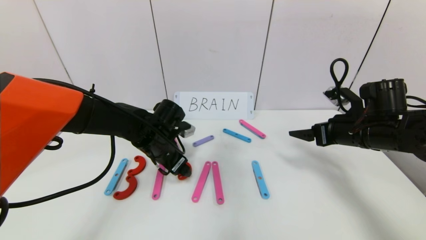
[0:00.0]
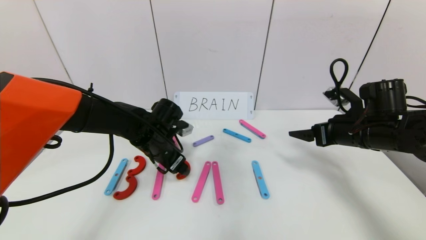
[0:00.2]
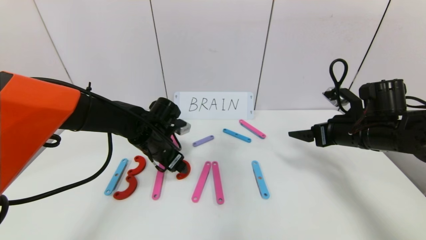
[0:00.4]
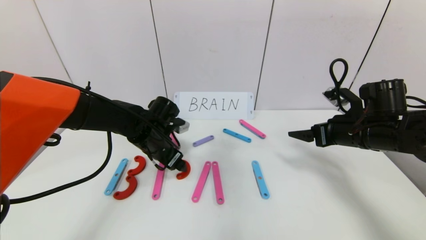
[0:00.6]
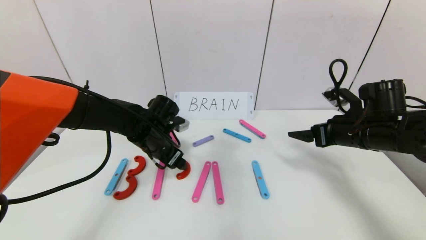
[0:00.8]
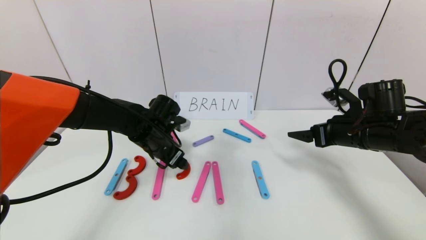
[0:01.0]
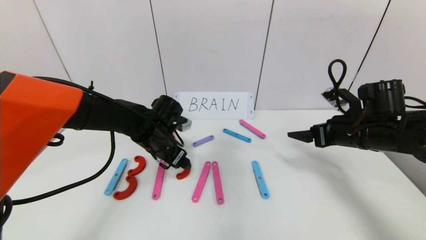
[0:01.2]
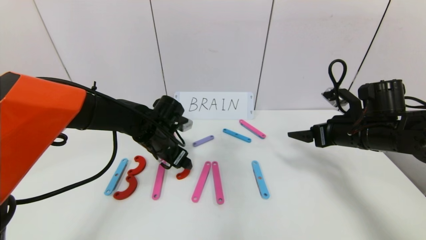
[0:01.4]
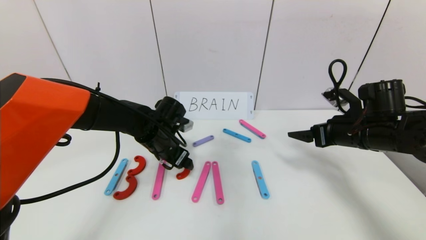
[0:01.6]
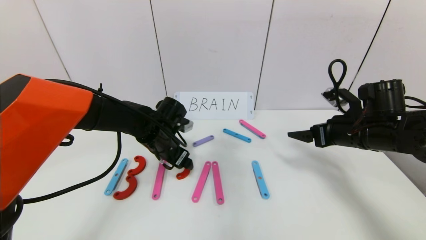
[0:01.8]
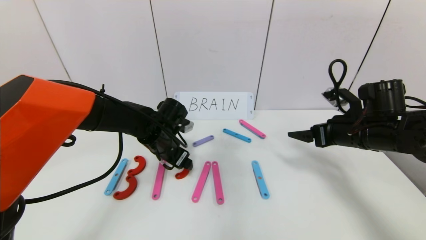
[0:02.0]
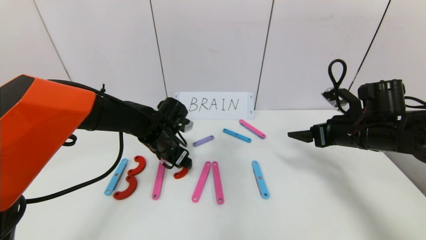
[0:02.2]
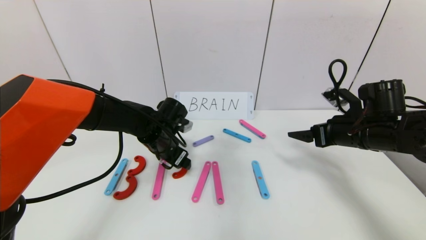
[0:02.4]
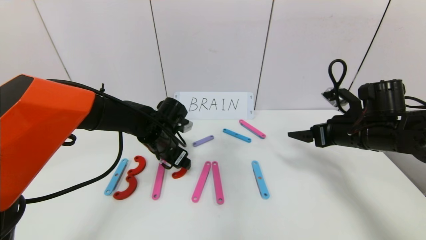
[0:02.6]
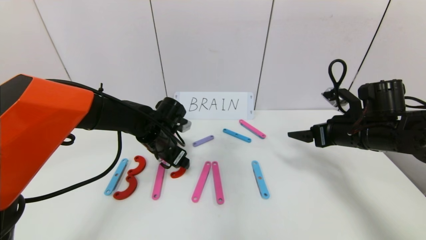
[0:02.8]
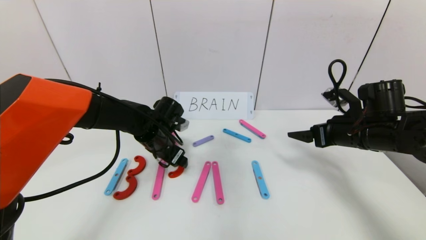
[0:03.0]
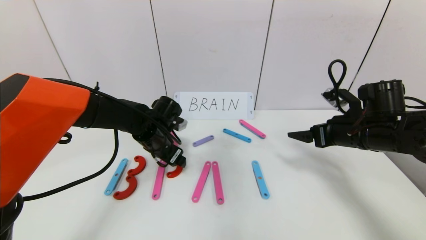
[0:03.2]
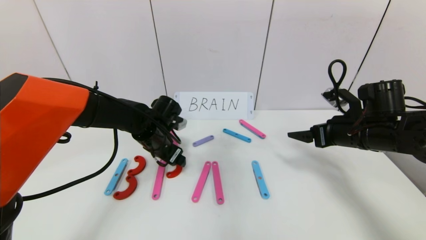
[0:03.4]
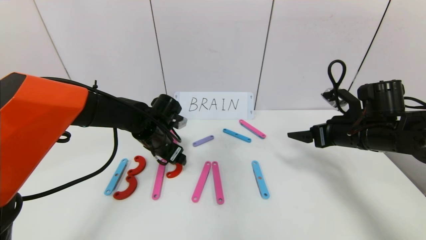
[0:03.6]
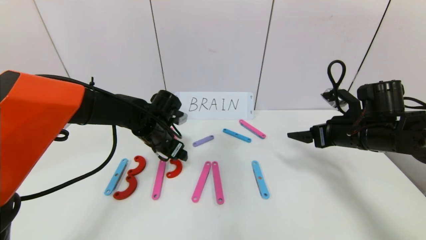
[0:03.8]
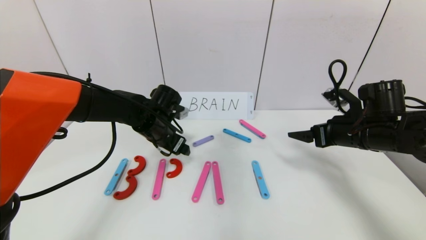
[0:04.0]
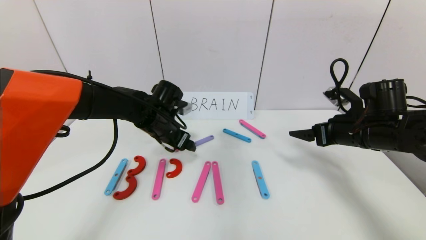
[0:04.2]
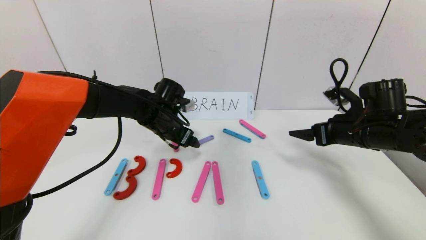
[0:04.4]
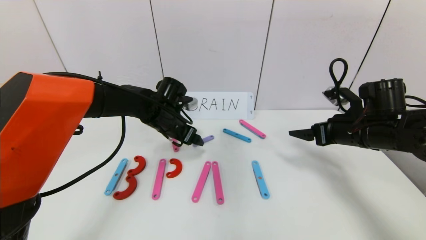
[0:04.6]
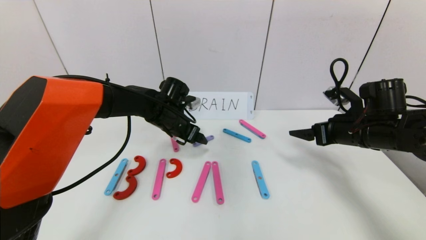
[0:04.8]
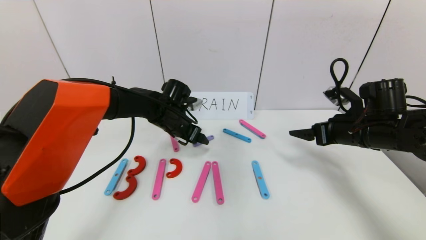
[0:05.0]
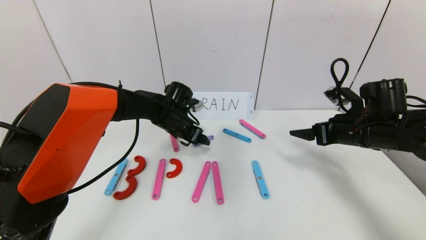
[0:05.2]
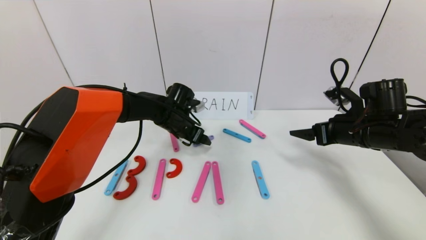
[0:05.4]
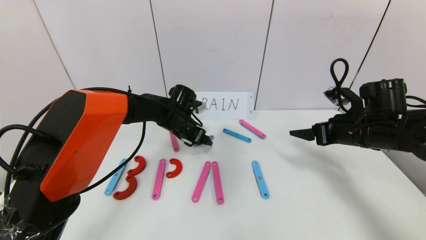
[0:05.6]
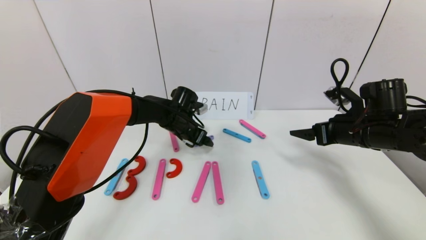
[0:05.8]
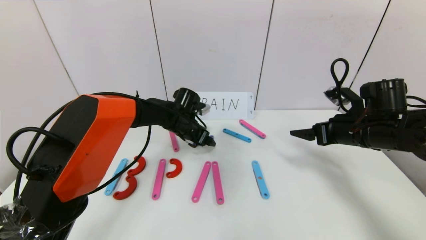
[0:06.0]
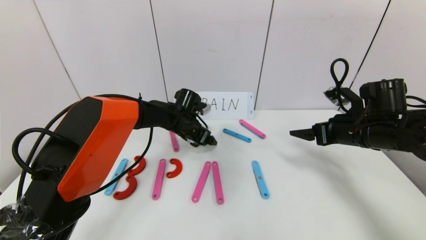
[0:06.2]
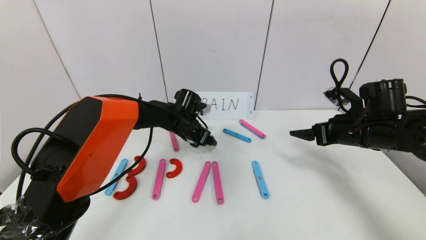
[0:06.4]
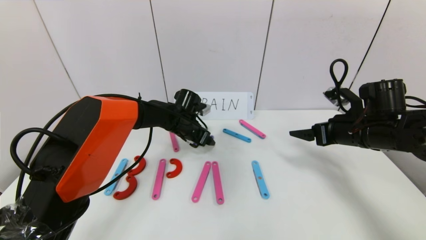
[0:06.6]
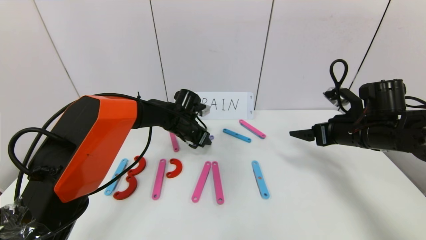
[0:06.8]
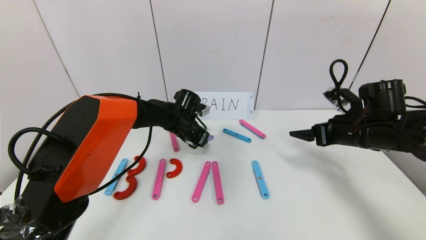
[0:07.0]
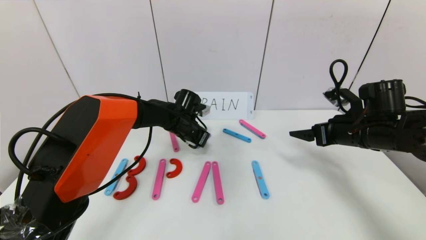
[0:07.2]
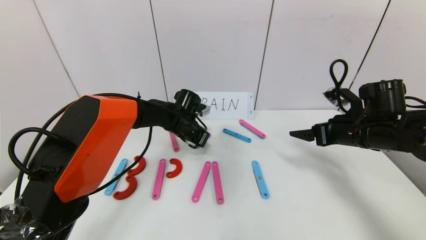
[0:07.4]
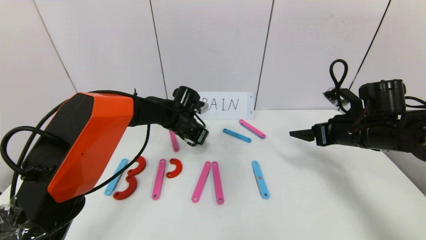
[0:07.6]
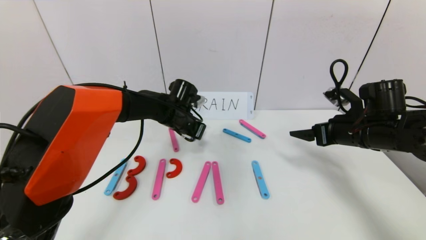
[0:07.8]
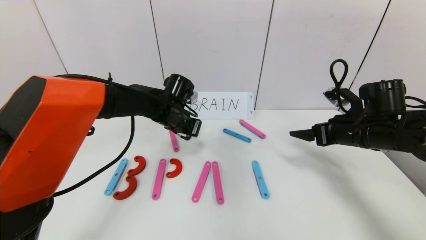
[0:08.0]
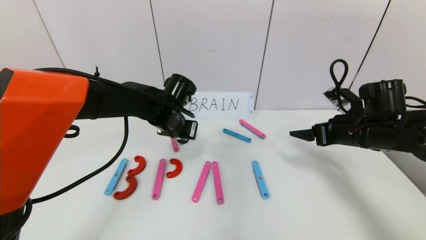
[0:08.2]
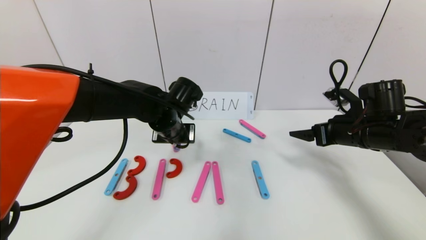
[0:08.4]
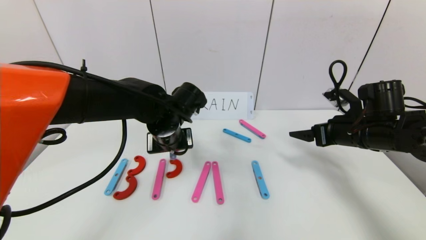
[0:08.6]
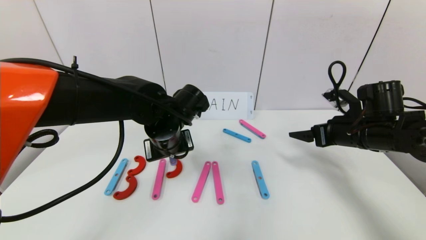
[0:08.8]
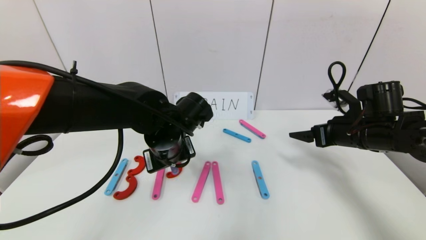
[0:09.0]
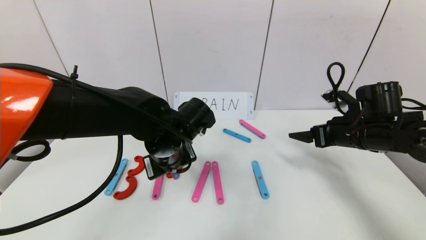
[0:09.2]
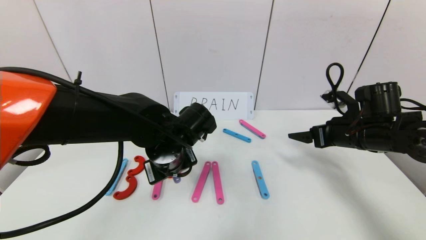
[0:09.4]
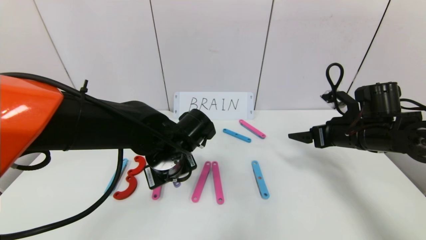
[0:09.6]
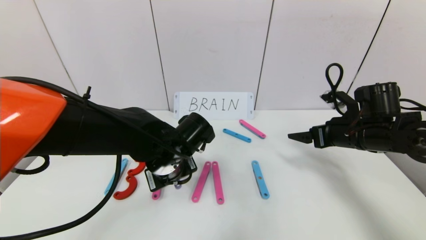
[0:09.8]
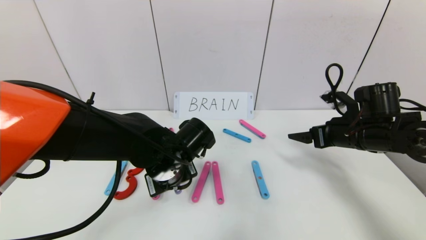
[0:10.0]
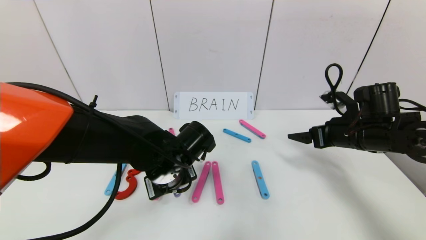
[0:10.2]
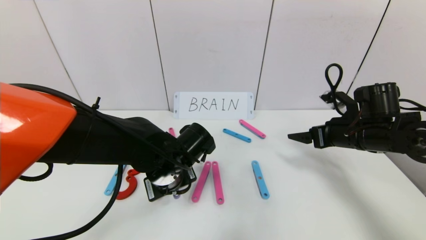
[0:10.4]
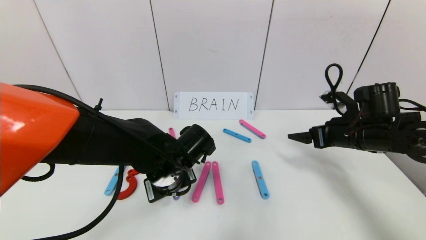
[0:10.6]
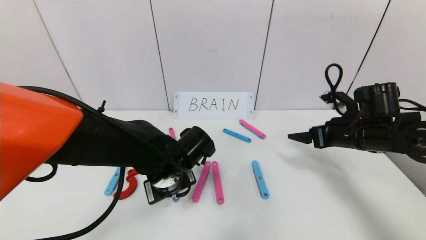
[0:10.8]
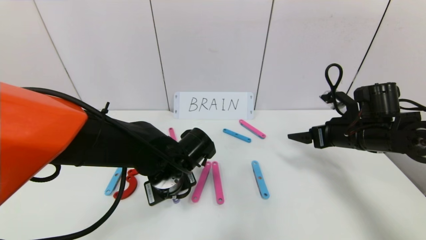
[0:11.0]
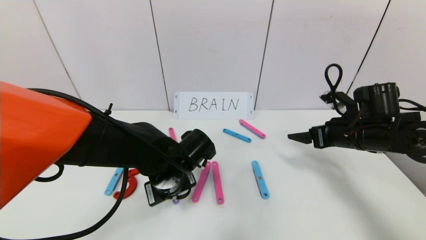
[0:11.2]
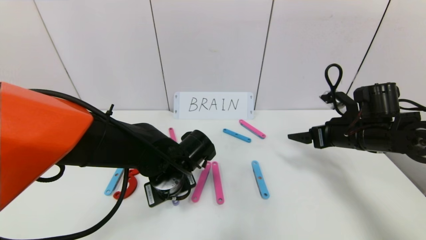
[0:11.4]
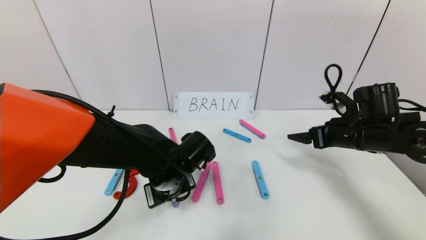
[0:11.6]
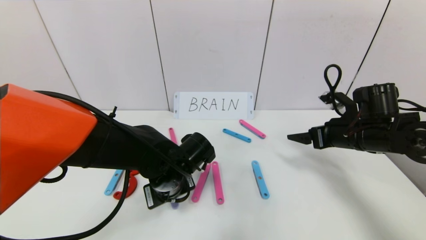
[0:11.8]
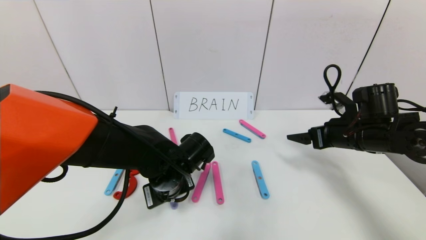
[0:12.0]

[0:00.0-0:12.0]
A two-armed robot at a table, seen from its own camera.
Task of the whole recording: rearrange the word baai as brain.
0:00.0 to 0:04.4: There are only small adjustments of the grippers.
0:04.4 to 0:06.0: The left gripper shifts about 5 cm forward.
0:06.0 to 0:07.6: The left gripper closes its fingers.
0:07.6 to 0:09.0: The left gripper shifts roughly 15 cm backward.
0:09.0 to 0:10.4: The left gripper changes place by some 5 cm.
0:10.4 to 0:12.0: The grippers make only small movements.

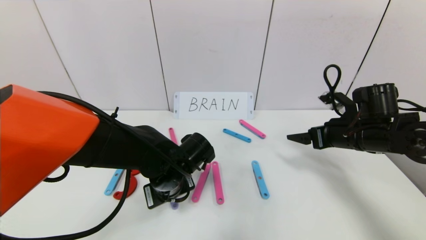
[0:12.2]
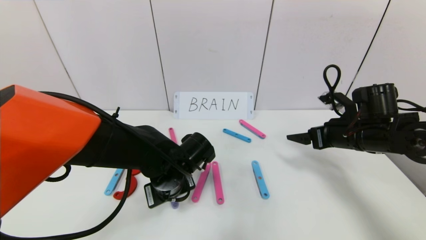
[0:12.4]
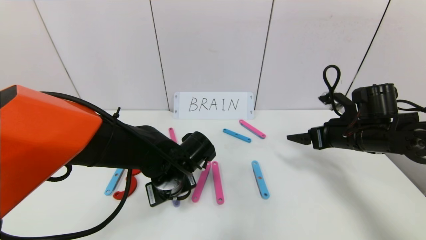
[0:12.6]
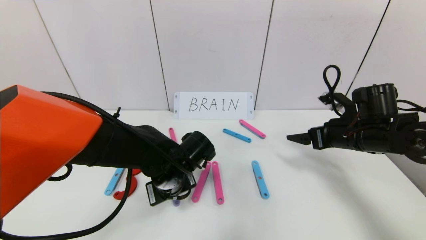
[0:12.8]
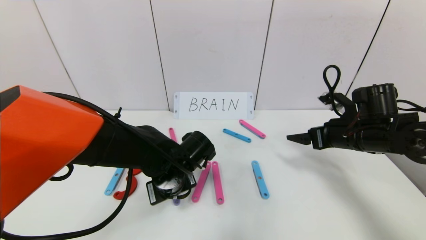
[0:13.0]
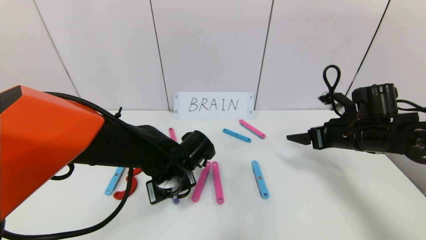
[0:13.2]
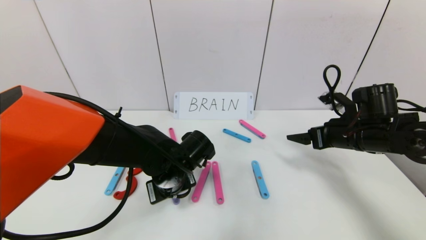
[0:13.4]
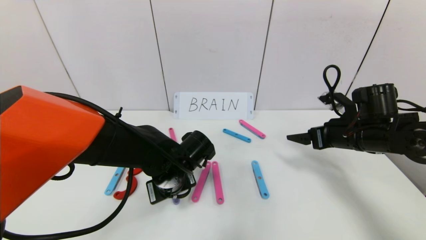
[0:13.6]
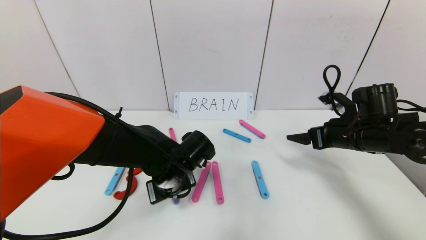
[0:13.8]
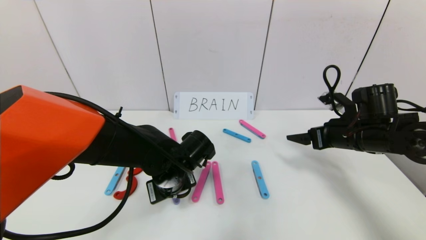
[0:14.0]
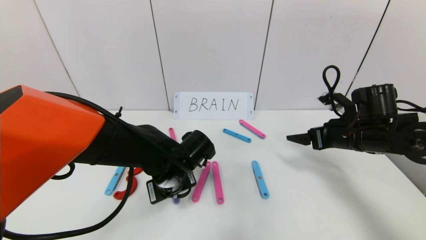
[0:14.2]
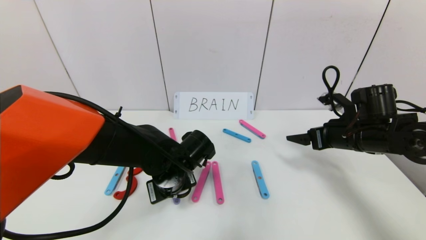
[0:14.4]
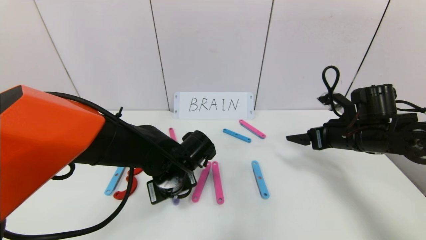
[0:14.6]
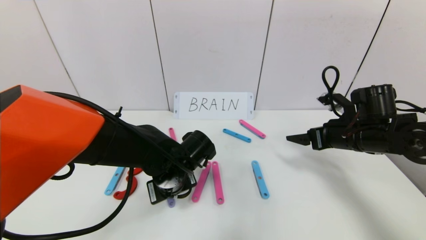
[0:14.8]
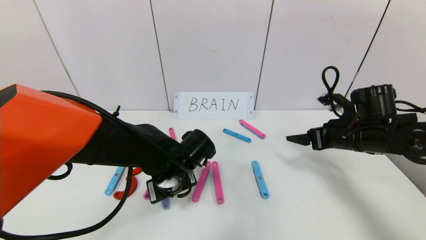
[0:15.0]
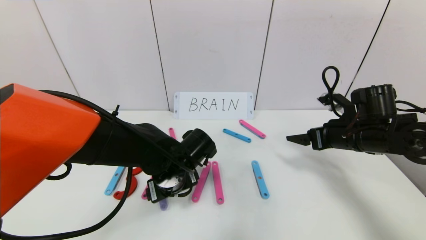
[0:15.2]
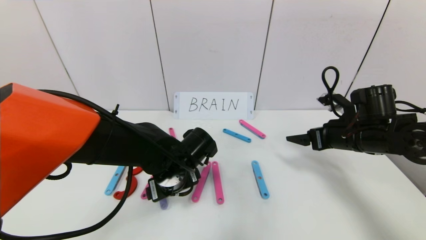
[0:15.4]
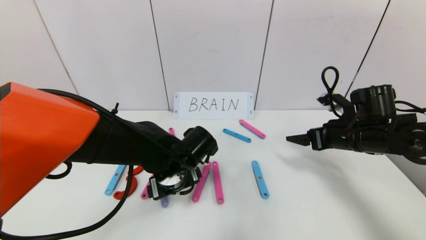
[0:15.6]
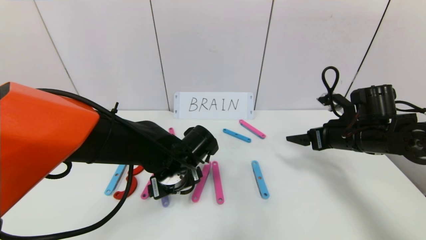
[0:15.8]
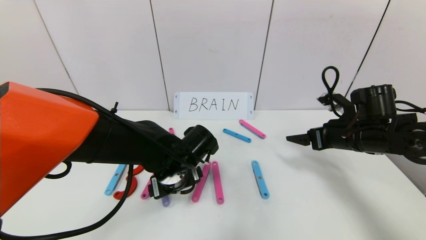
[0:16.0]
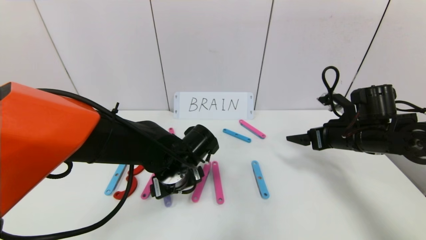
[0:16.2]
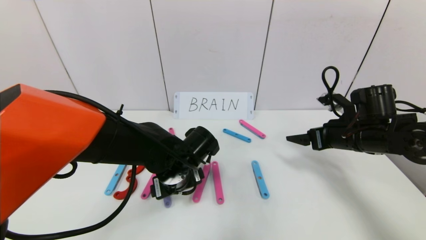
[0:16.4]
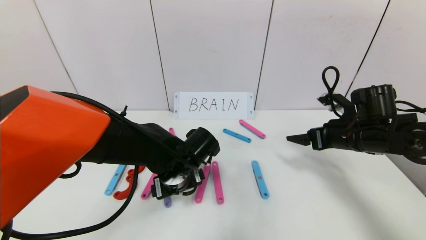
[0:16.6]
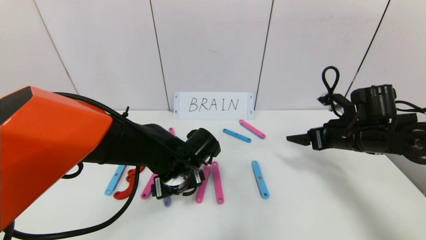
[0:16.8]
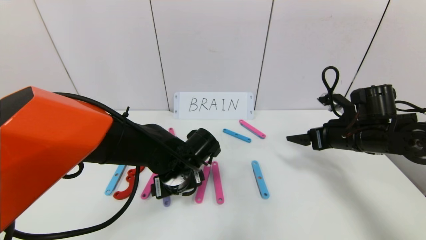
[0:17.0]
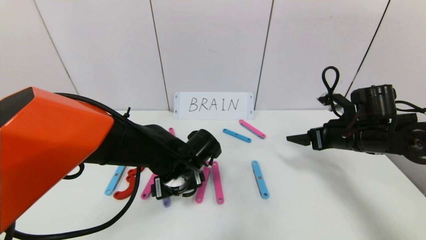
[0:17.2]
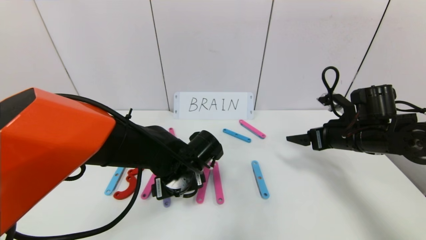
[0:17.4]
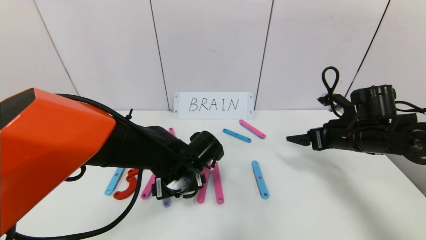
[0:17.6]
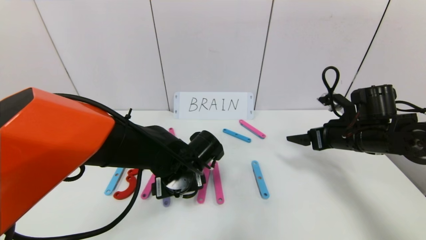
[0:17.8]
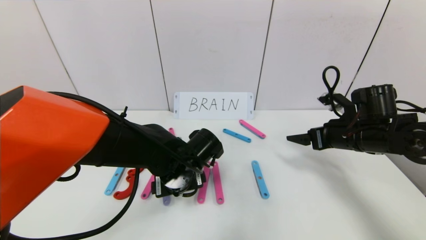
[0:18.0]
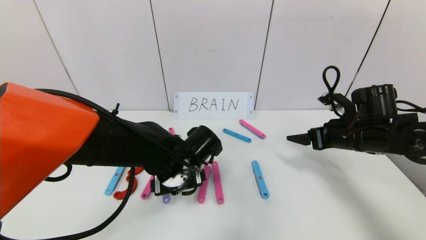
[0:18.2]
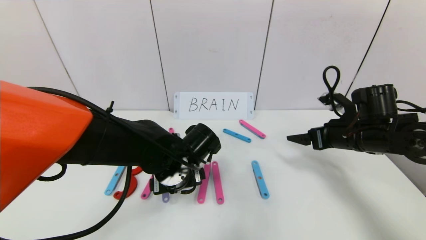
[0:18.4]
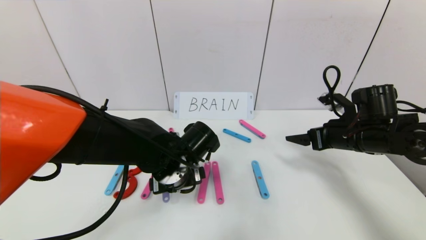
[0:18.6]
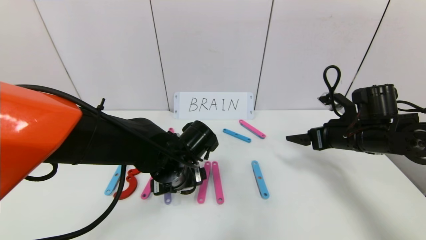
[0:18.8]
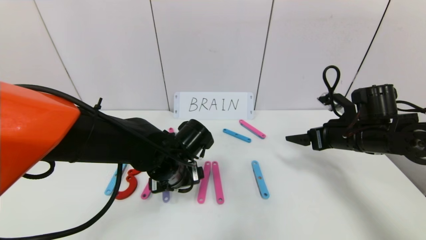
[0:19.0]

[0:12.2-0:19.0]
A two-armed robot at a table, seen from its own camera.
Task of the whole recording: rearrange the word baai as brain.
0:12.2 to 0:13.6: The two grippers keep their place.
0:13.6 to 0:15.0: The left gripper opens up.
0:15.0 to 0:16.2: Both grippers stay about where they are.
0:16.2 to 0:19.0: There are only small adjustments of the grippers.
